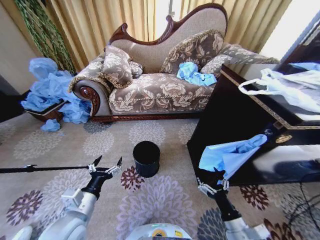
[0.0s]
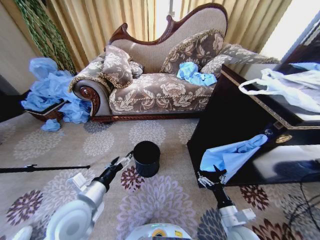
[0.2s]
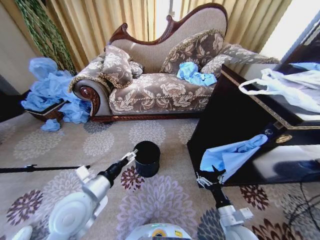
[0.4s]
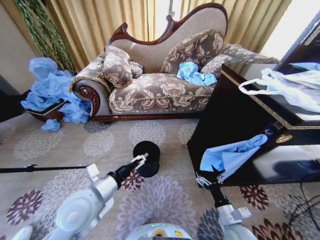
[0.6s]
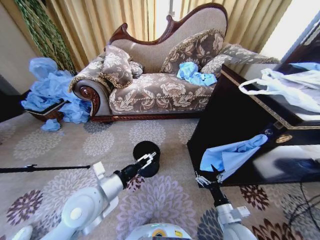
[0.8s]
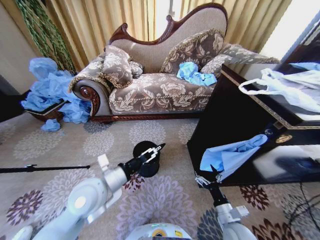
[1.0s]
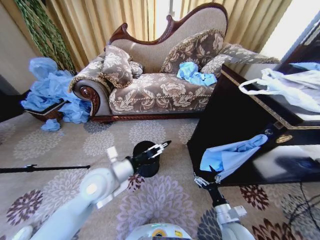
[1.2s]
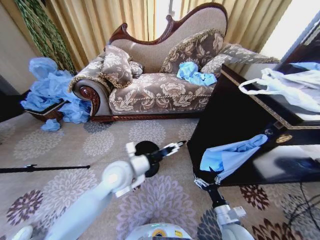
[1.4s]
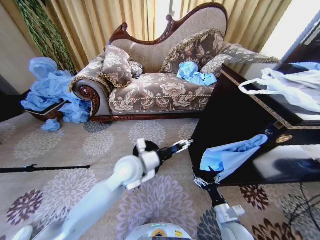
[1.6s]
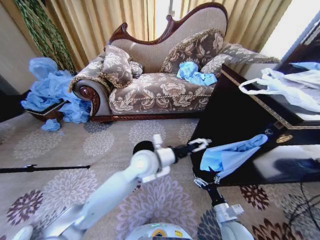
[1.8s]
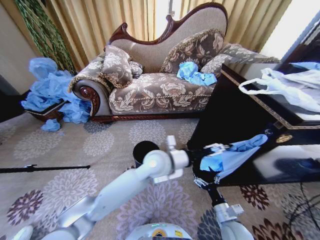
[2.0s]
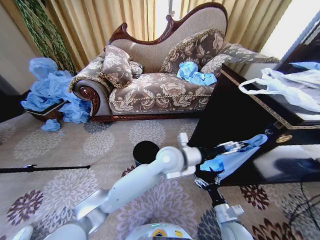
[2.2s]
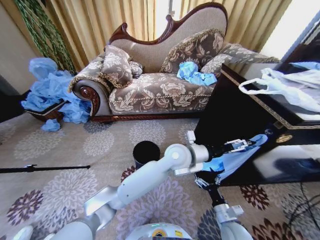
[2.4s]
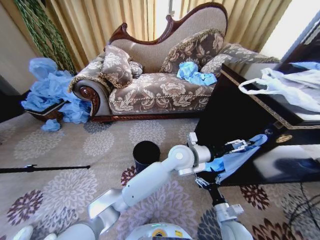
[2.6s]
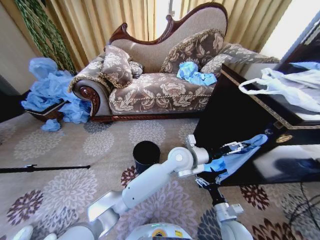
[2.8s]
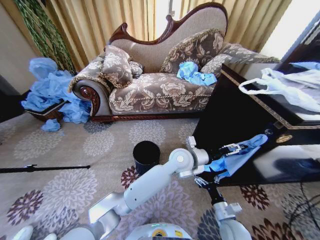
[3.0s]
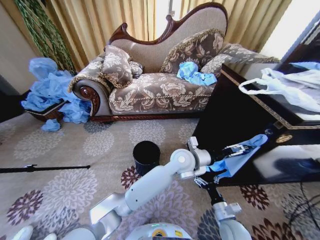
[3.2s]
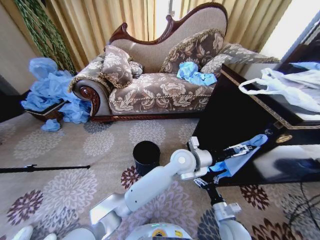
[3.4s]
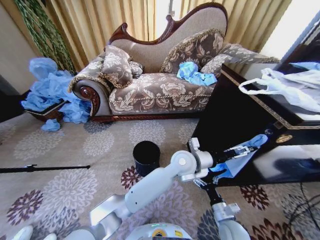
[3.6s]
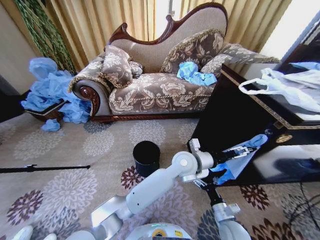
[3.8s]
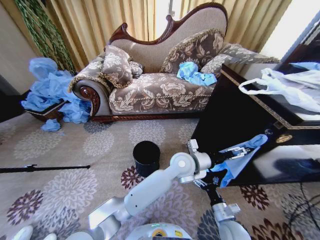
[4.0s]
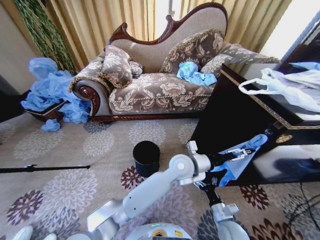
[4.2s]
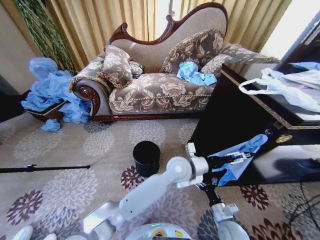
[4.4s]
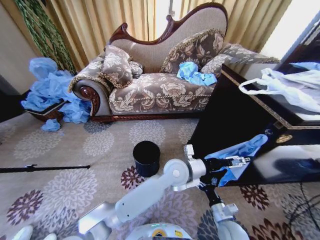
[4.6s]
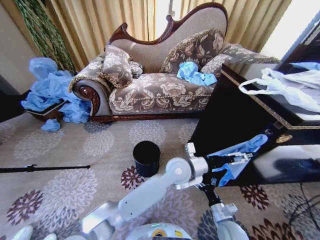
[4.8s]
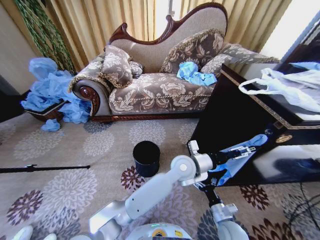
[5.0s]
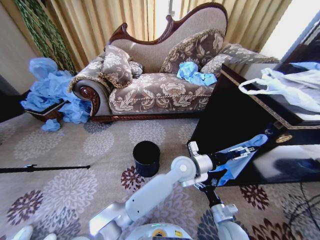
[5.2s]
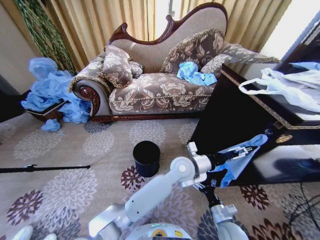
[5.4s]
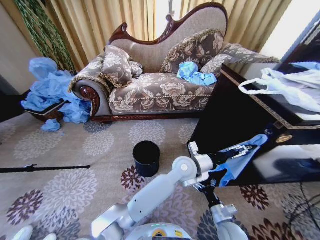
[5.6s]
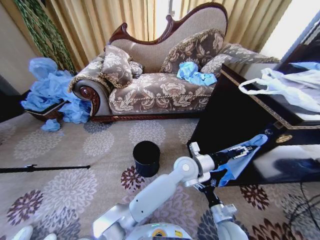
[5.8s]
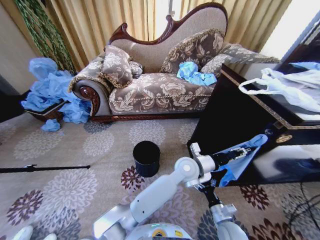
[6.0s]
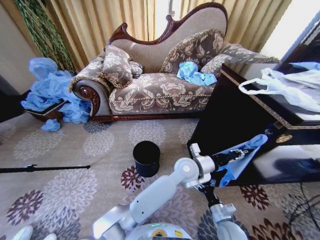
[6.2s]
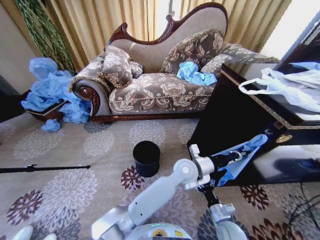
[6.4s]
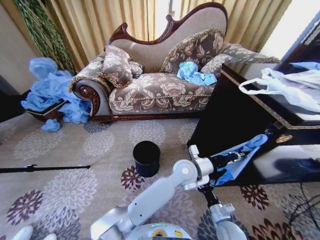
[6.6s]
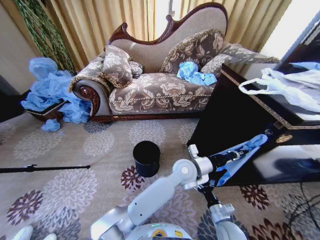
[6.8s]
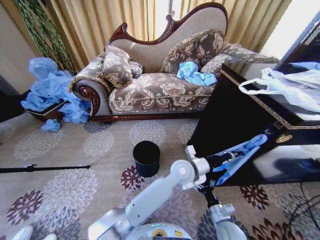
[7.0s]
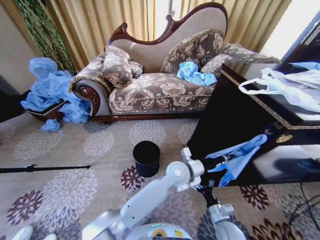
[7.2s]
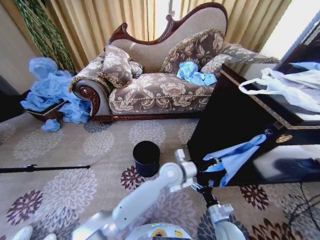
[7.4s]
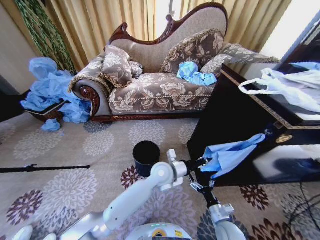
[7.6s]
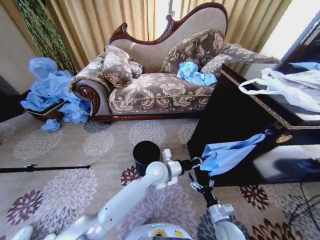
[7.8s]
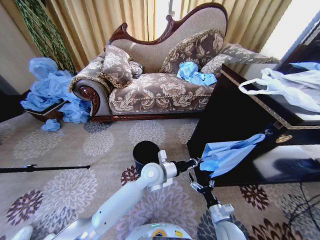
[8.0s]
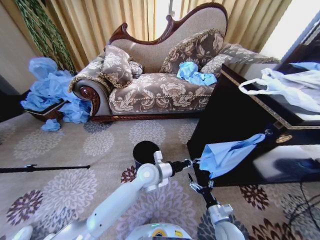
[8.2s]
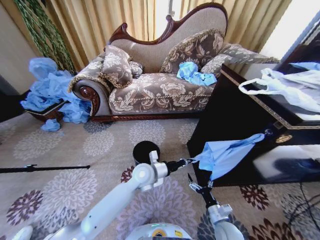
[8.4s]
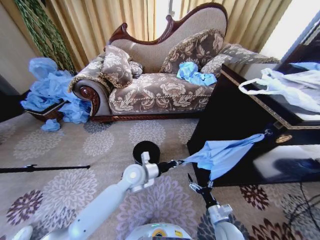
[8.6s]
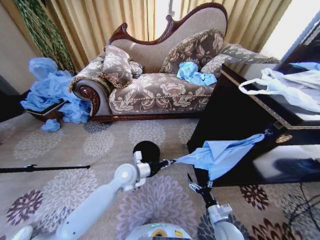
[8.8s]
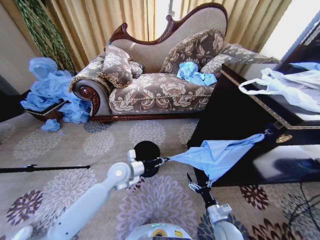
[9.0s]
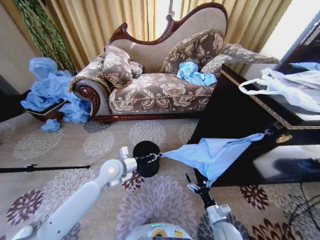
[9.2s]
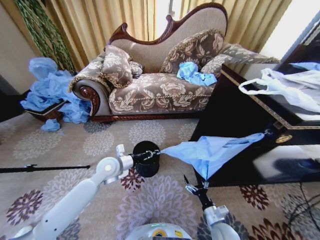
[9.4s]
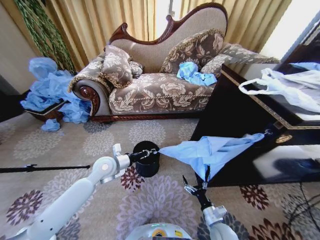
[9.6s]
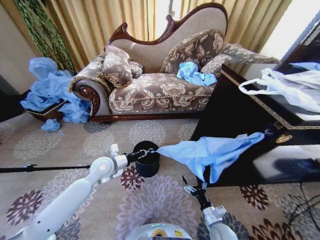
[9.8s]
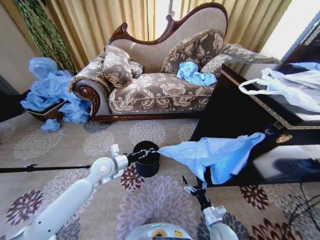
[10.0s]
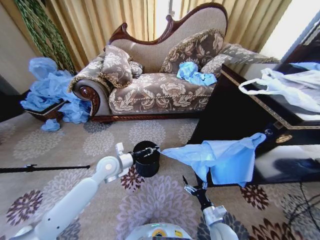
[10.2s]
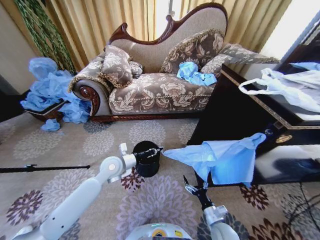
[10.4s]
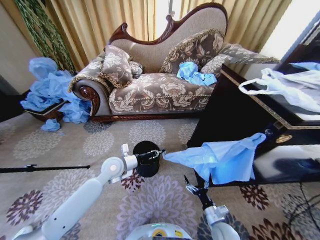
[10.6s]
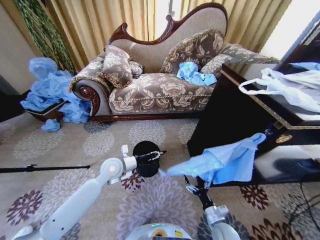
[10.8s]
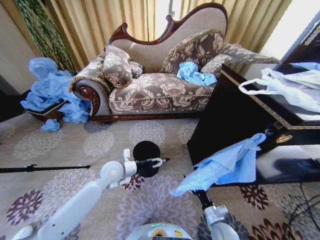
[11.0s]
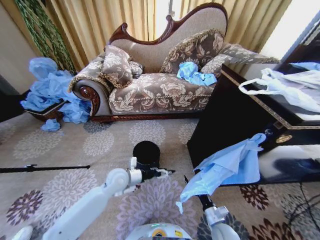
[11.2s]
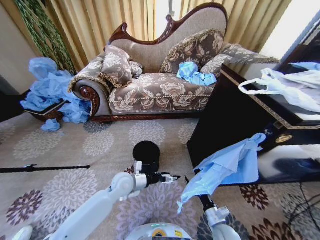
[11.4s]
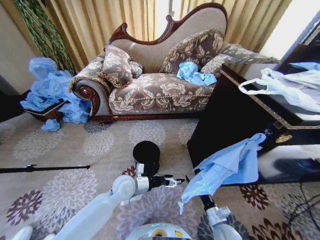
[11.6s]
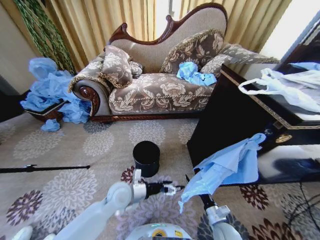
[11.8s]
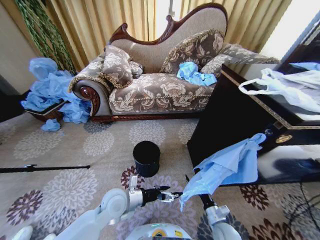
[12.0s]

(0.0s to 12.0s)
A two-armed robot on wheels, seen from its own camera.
Task of the whole recording: Place a garbage bag over the trash bin.
1.6s - 3.0s: The left gripper goes some 20 cm to the right.
3.0s - 4.4s: There are only small adjustments of the grippers.
4.4s - 6.0s: The left gripper closes up.
6.0s - 7.6s: The left gripper travels to the left by about 10 cm, and closes.
7.6s - 9.0s: The left gripper moves to the left, roughly 20 cm.
10.4s - 12.0s: The left gripper shifts approximately 15 cm backward and downward, and opens its fingers.

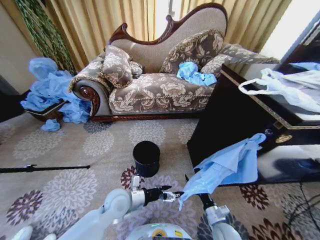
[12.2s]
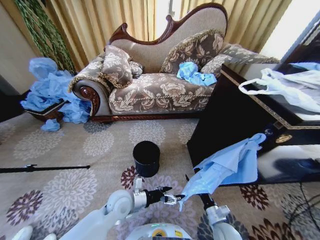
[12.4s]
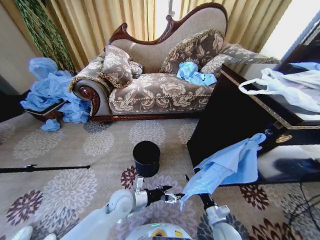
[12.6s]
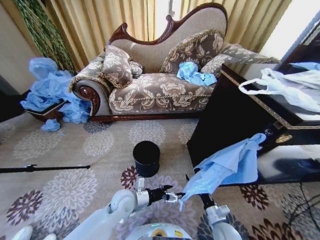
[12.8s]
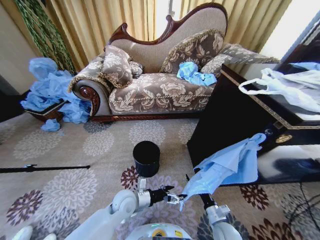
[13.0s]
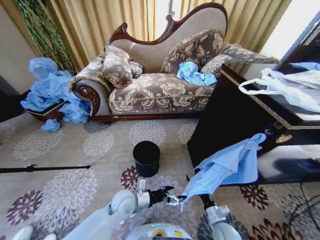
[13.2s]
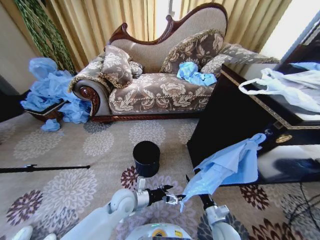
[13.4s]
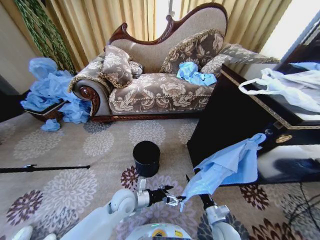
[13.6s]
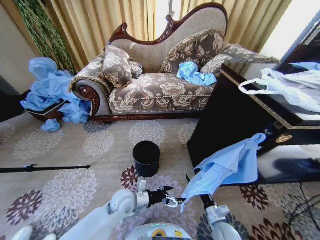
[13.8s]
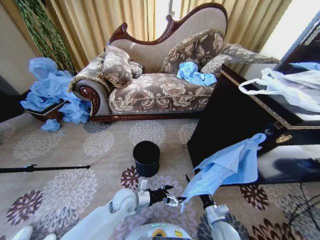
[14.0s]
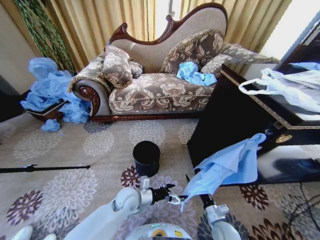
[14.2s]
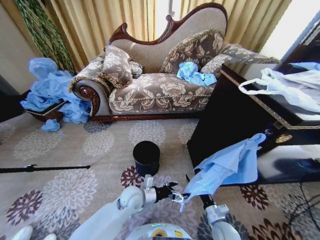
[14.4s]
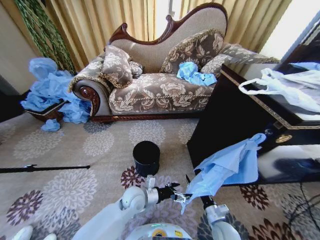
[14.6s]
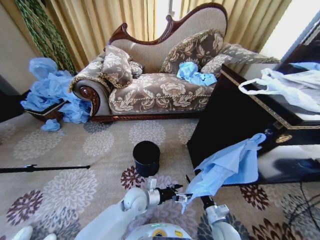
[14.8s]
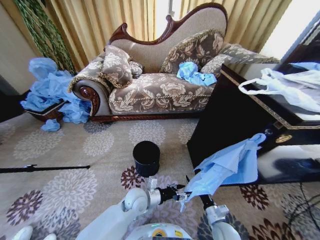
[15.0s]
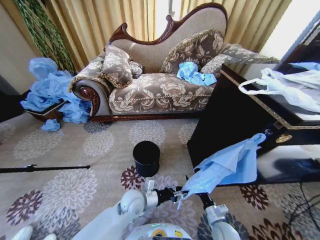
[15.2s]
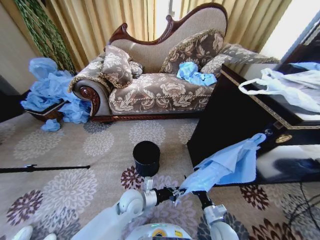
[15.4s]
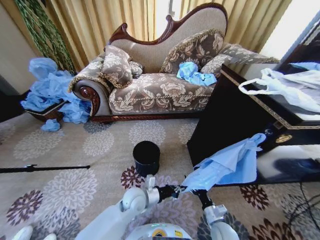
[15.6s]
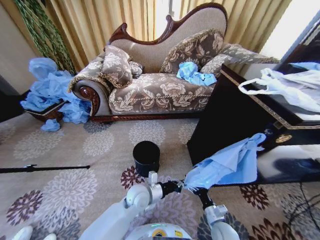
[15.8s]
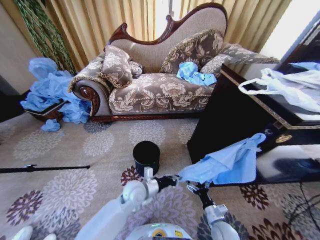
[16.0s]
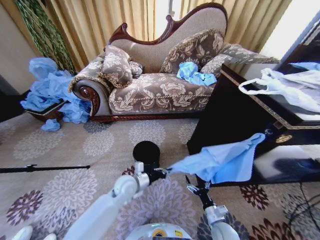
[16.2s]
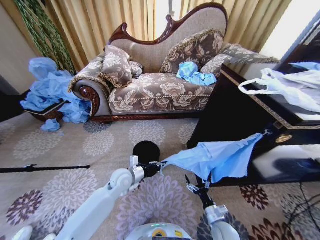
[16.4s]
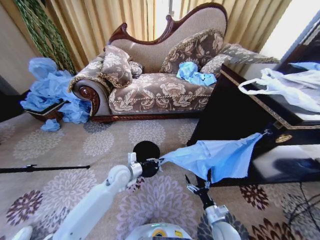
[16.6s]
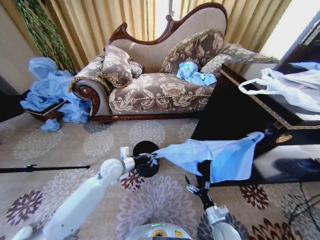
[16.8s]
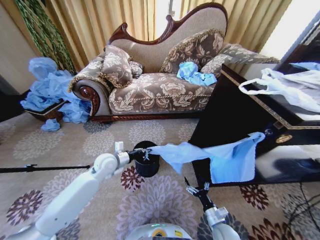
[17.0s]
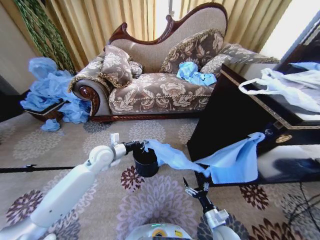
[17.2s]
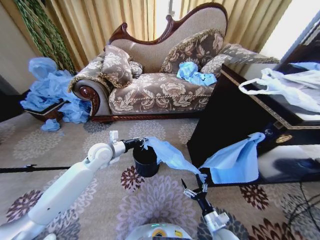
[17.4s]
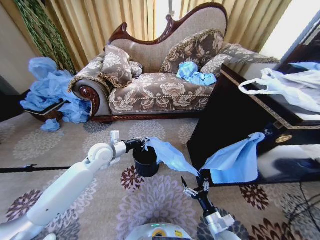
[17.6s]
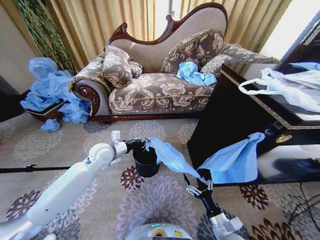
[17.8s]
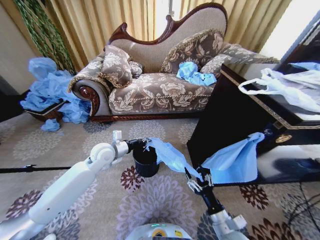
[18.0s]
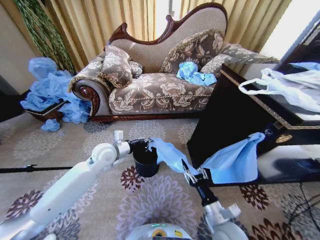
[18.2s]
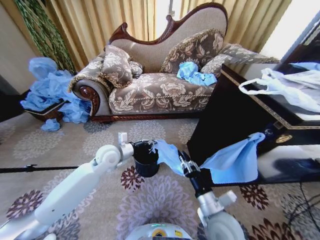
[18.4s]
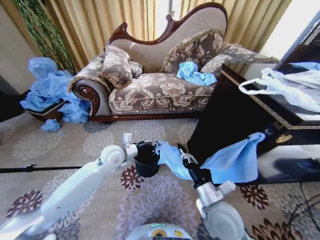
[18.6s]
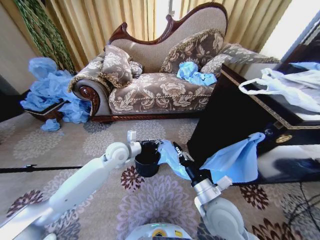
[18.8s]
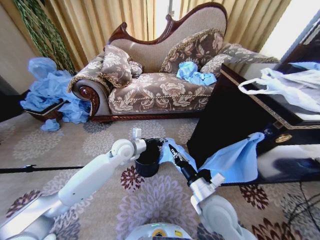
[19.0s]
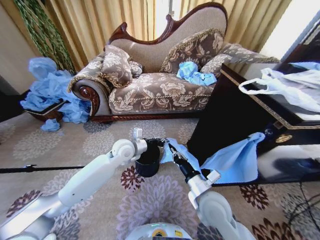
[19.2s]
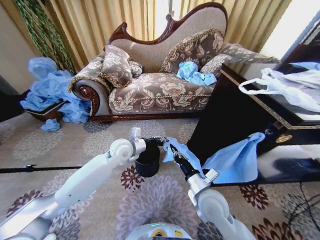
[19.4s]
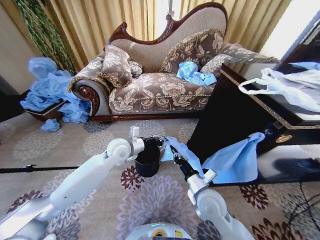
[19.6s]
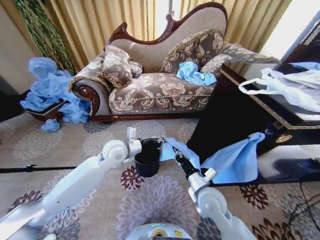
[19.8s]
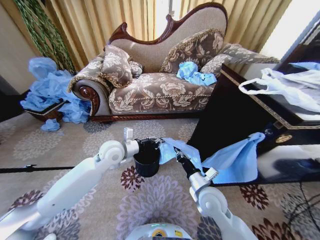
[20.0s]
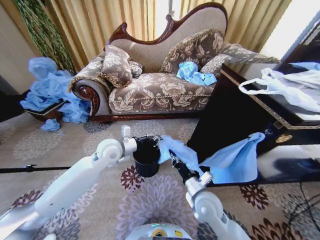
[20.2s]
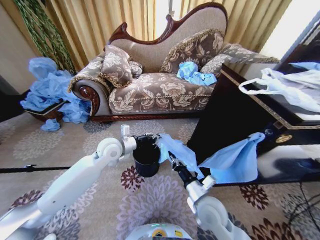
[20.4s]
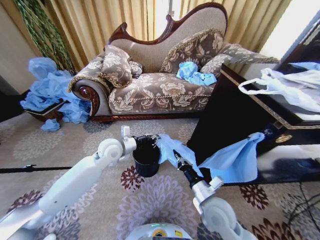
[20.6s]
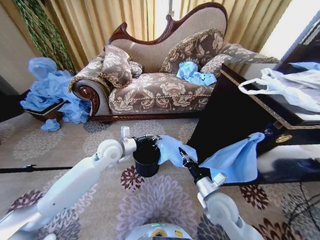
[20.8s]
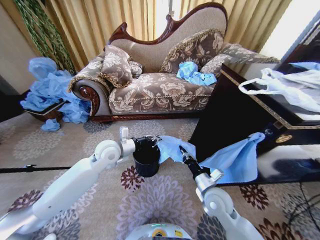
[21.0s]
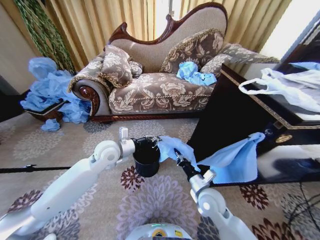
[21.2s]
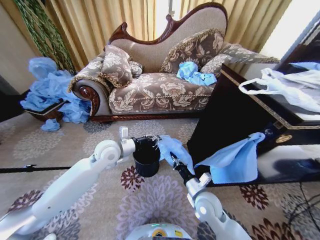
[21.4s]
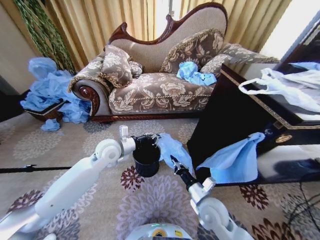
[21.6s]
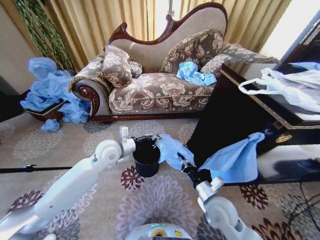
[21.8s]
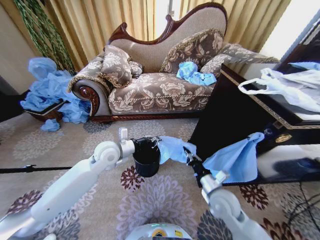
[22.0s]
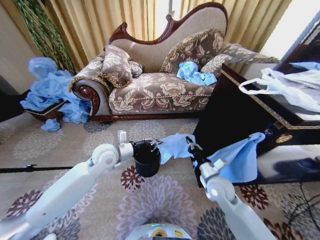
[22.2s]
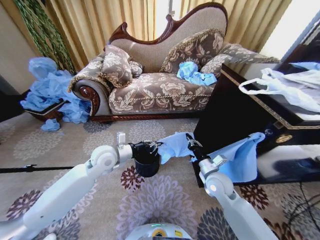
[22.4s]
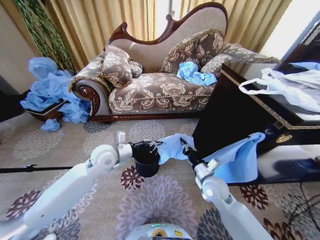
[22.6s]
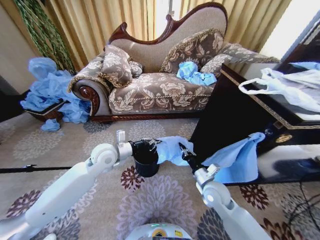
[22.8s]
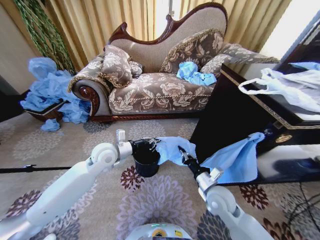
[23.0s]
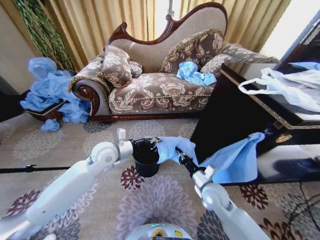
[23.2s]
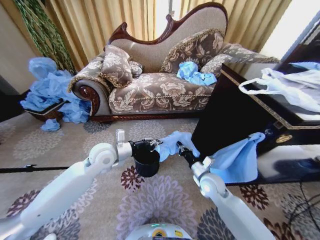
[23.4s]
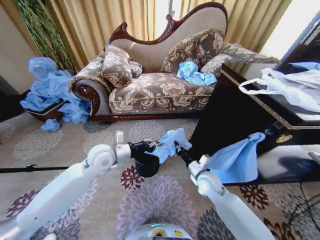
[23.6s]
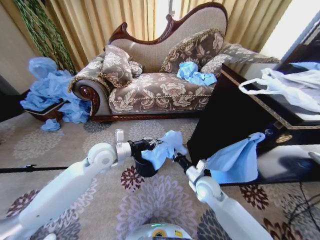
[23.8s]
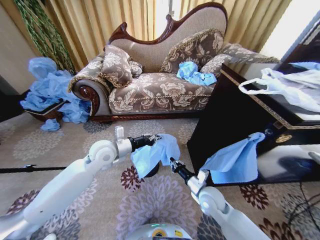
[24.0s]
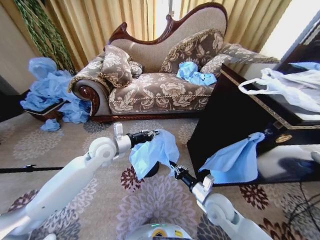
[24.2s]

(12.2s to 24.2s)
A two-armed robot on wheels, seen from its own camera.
Task of the whole recording: Place a garbage bag over the trash bin.
12.2s - 13.8s: The grippers stay close to where they were, moving slightly.
13.8s - 15.2s: The left gripper closes its fingers.
15.2s - 16.6s: The left gripper goes roughly 15 cm forward, to the left and upward, and closes its fingers.
16.6s - 18.2s: The grippers both shift upward by approximately 10 cm. The right gripper closes up.
18.2s - 19.8s: The left gripper heads to the right, covering some 5 cm; the right gripper goes about 10 cm forward, and closes up.
19.8s - 21.2s: There are only small adjustments of the grippers.
22.6s - 24.2s: The right gripper goes some 5 cm backward.
